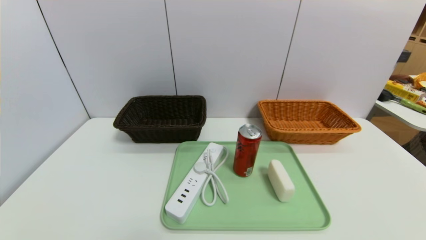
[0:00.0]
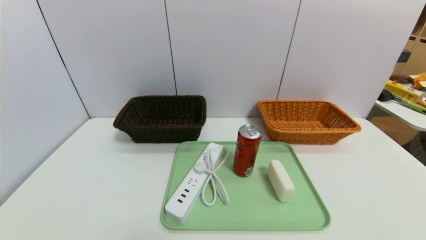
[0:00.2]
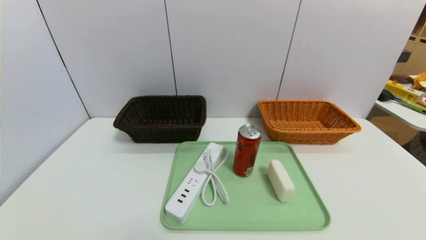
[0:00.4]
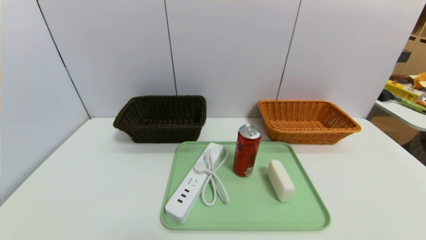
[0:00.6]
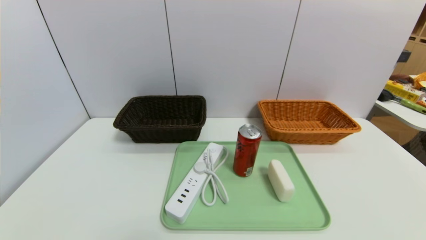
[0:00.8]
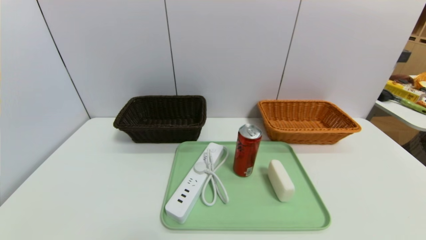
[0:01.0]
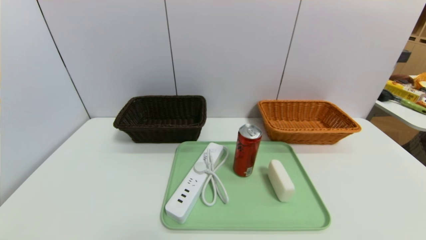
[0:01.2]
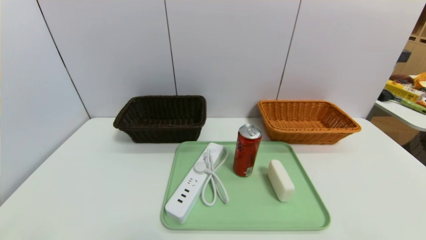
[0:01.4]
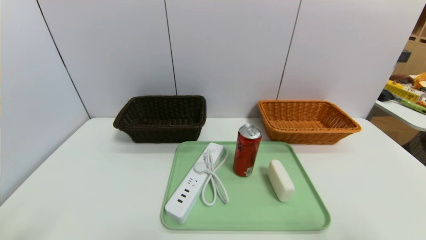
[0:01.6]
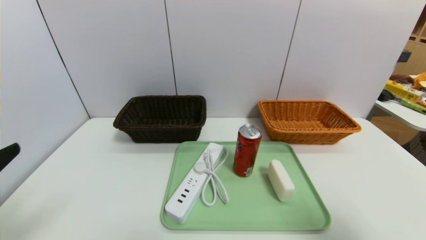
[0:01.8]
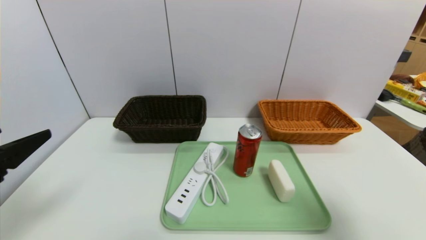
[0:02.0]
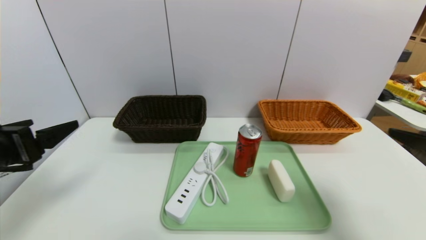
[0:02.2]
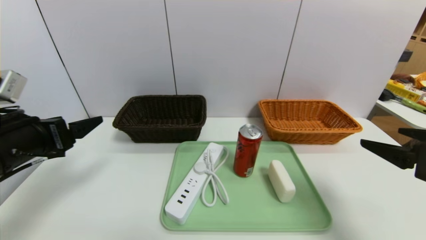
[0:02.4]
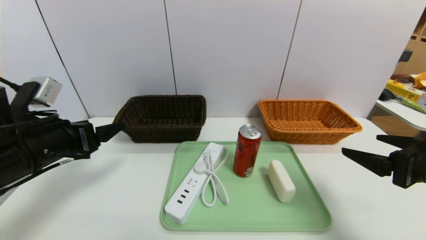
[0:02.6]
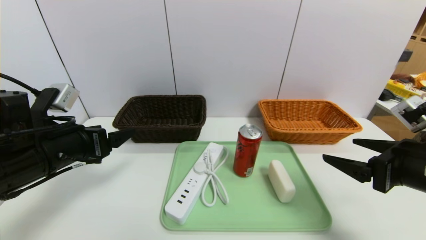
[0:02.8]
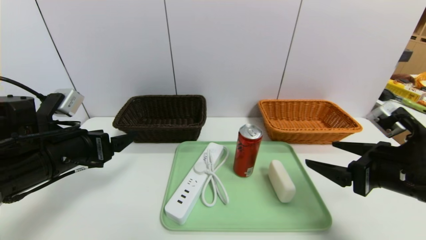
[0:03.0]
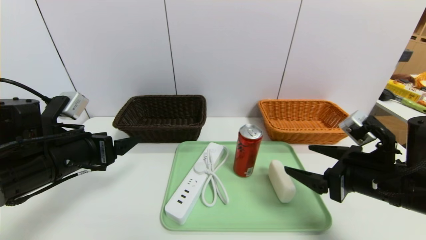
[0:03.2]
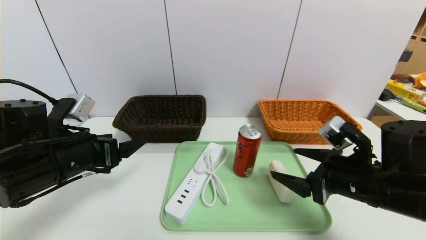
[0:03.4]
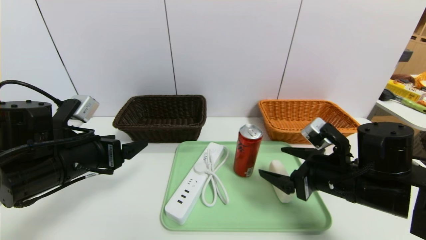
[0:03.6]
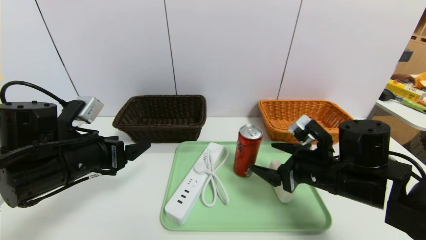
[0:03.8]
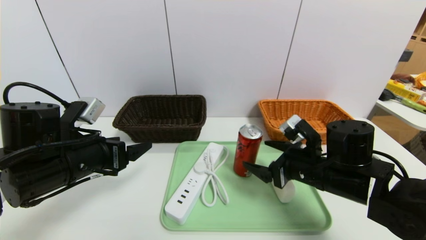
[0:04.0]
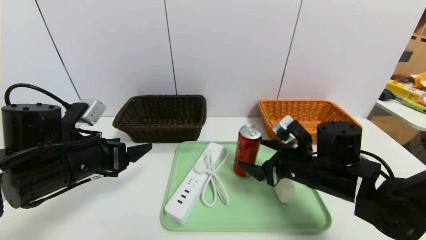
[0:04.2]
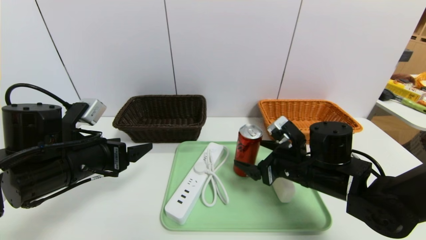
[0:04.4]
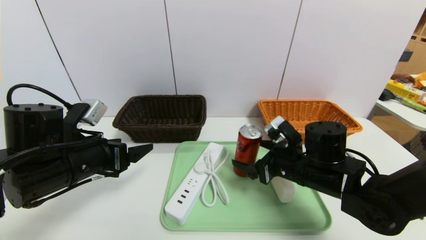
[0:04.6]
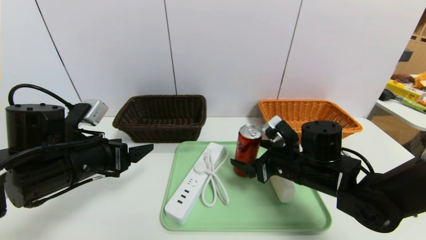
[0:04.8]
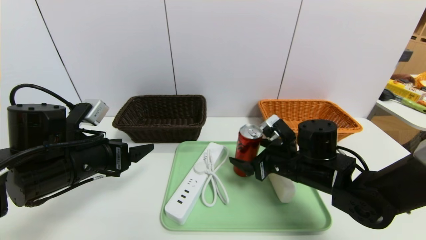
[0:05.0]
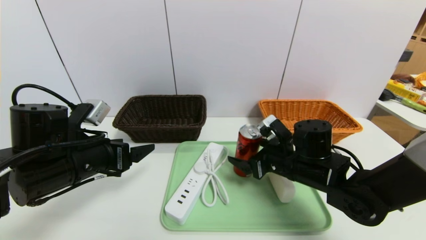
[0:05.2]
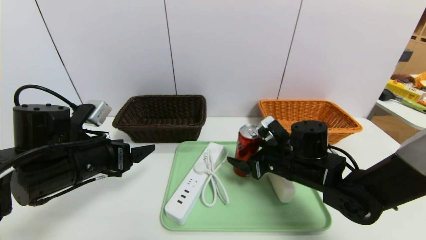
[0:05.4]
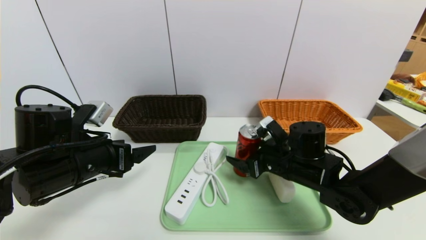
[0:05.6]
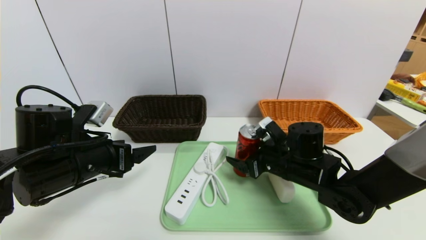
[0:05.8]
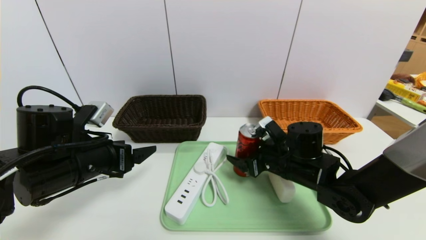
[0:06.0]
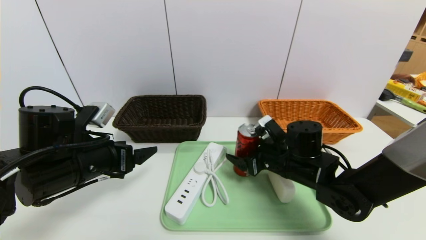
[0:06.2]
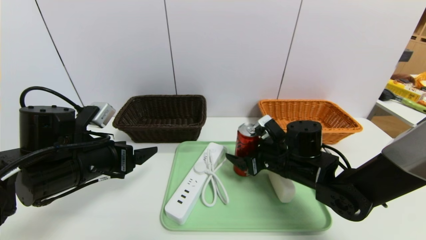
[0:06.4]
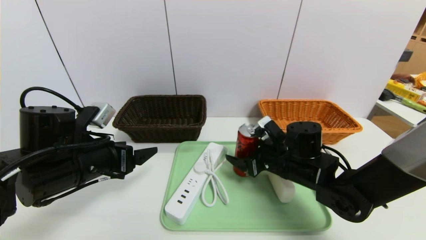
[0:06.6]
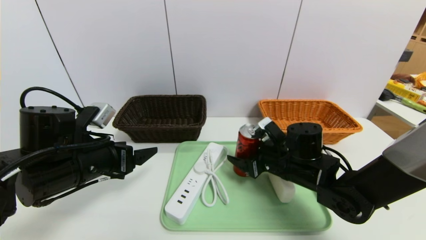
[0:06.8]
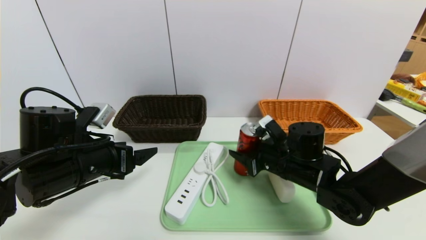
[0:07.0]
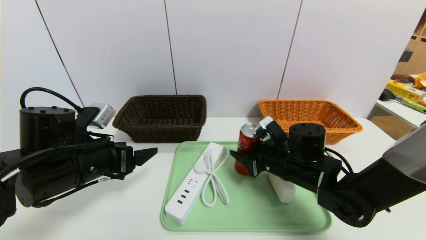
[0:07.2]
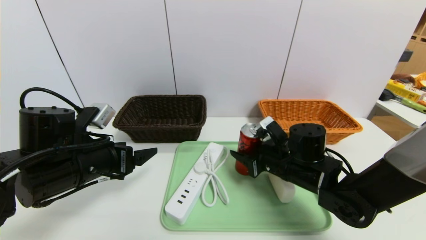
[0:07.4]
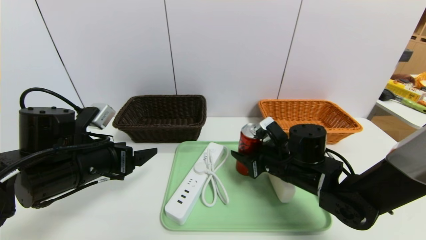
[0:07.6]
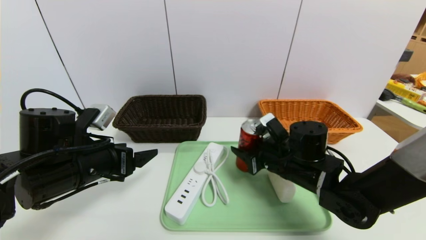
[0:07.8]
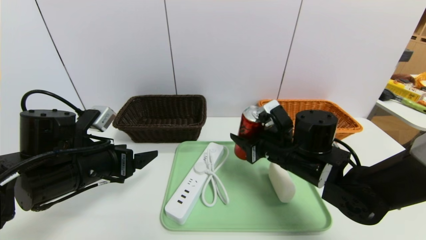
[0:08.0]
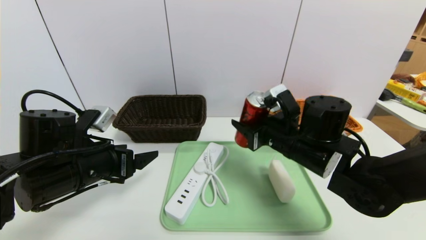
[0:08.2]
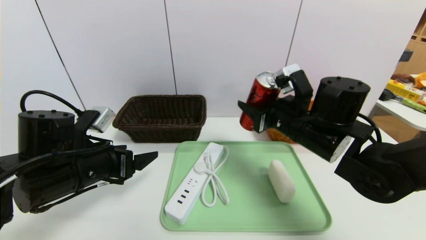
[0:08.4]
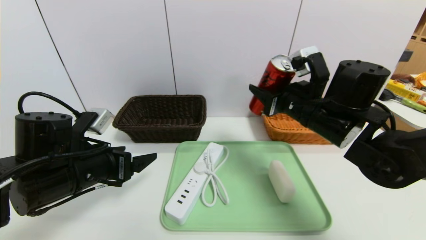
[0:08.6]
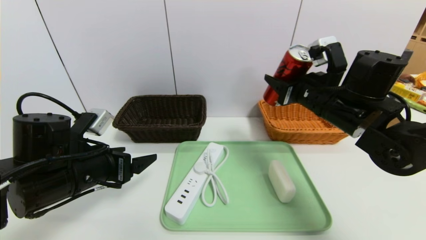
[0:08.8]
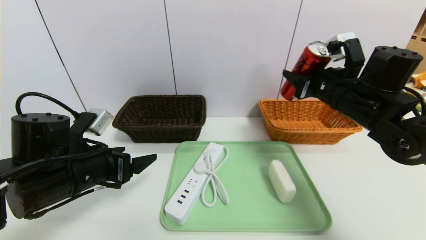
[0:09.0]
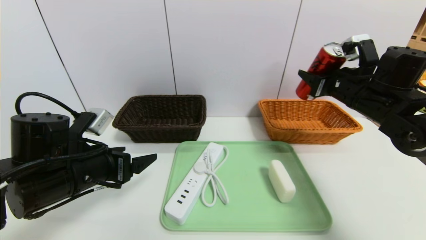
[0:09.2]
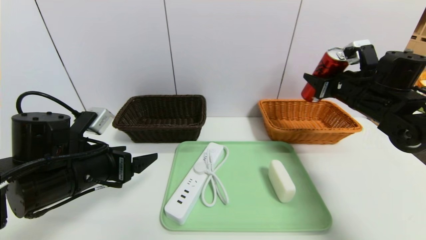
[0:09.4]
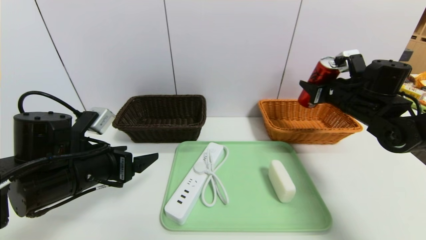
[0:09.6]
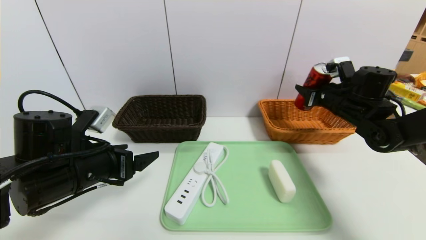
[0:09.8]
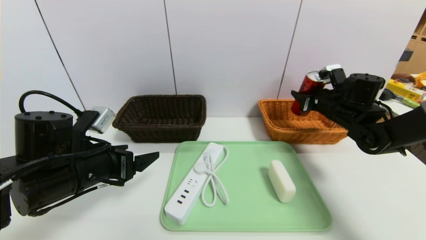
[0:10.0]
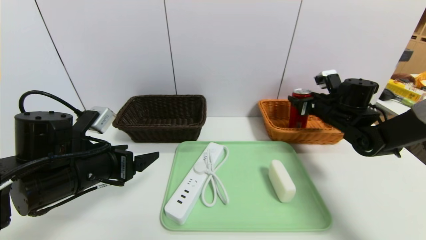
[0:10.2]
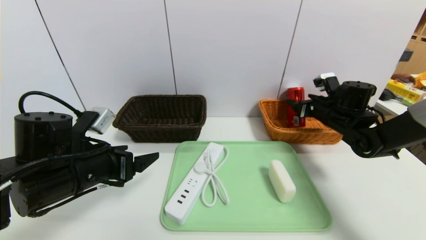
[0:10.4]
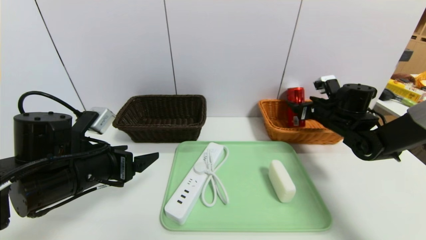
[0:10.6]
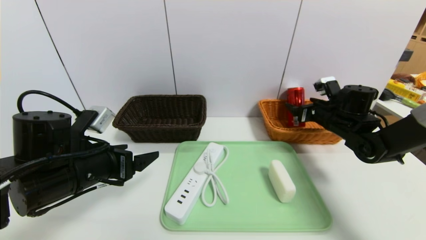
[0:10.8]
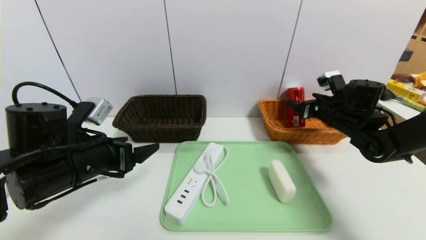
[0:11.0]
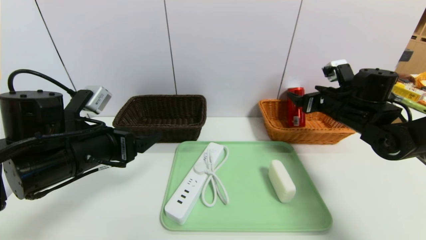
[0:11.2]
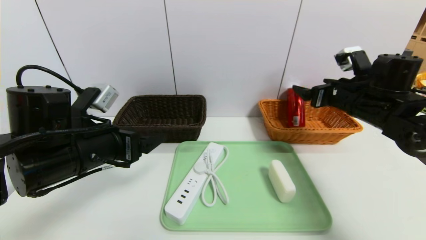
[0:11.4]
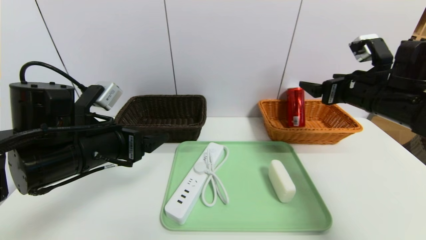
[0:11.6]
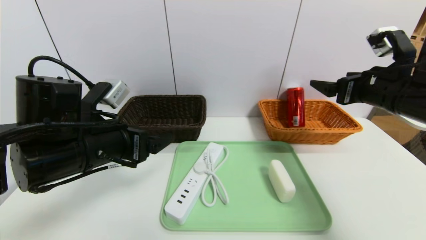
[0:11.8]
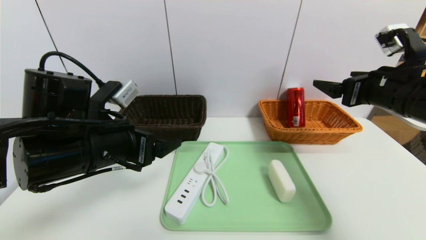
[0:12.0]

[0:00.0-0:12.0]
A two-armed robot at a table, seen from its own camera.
Task of the whole recording: place the food in the right basket with the right gripper, and place the non food items in the left basket with the left gripper.
Step, 0:00.0 to 0:10.4: Grasp the coke and put it in the right basket.
0:01.6 to 0:03.0: The right gripper is displaced forward and downward by roughly 20 cm. The left gripper goes about 20 cm forward.
0:03.0 to 0:04.4: The right gripper goes some 15 cm to the left, forward and downward.
0:04.4 to 0:06.0: There are only small adjustments of the grippers.
0:06.0 to 0:07.6: The right gripper closes.
0:07.6 to 0:09.0: The right gripper goes some 15 cm upward and to the right.
0:09.0 to 0:10.4: The right gripper travels downward, forward and to the right by some 15 cm, and opens.
0:10.4 to 0:12.0: The left gripper is displaced upward by about 5 cm. Meanwhile the right gripper heads backward and upward, covering roughly 20 cm, and opens up.

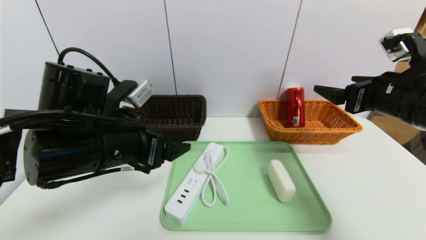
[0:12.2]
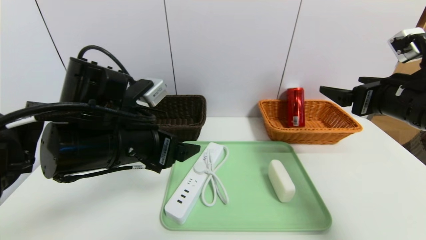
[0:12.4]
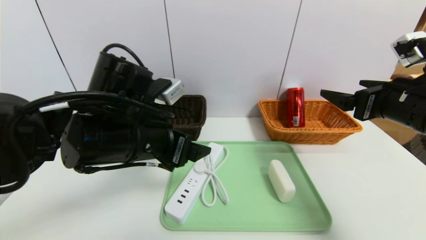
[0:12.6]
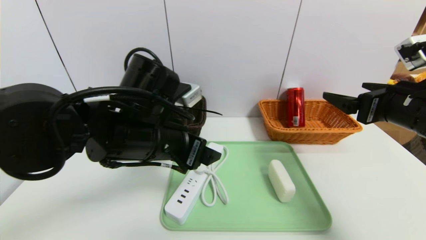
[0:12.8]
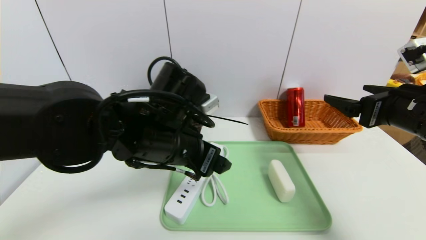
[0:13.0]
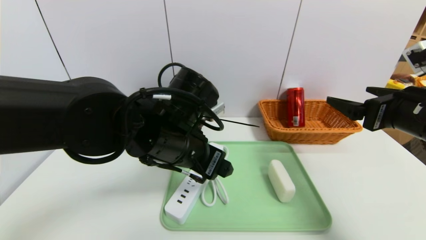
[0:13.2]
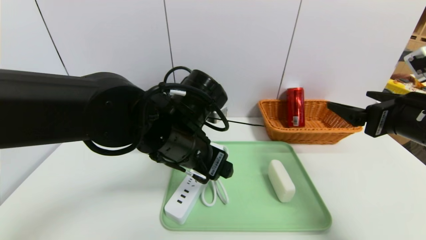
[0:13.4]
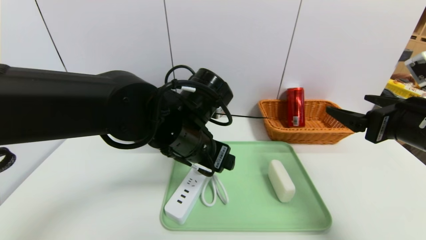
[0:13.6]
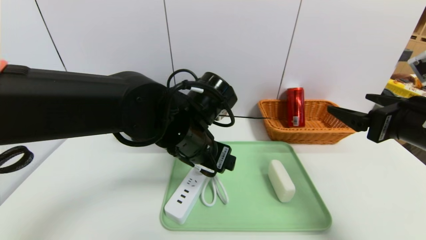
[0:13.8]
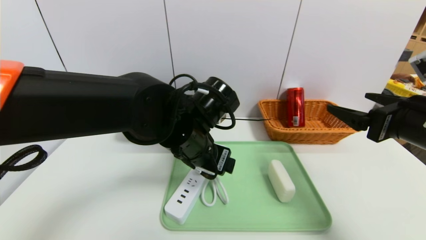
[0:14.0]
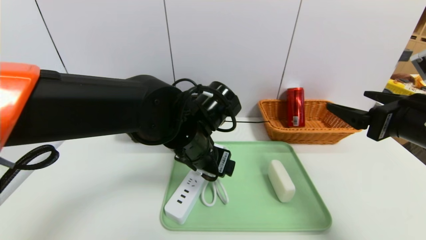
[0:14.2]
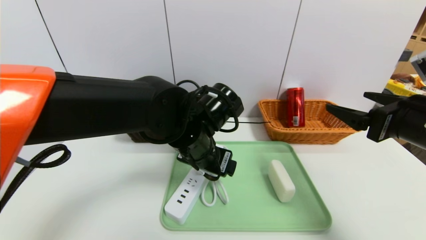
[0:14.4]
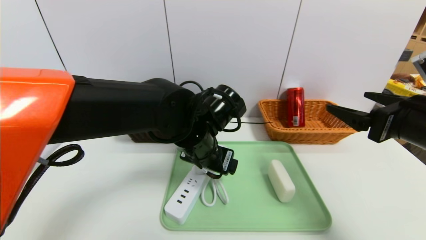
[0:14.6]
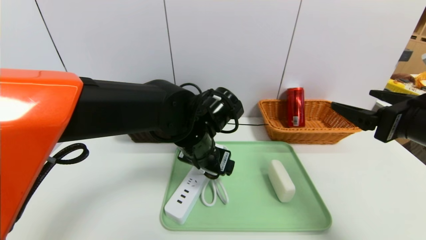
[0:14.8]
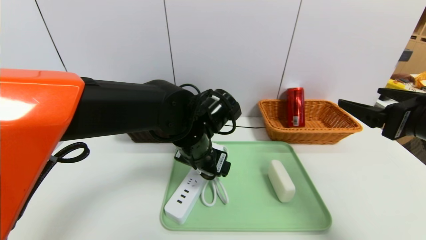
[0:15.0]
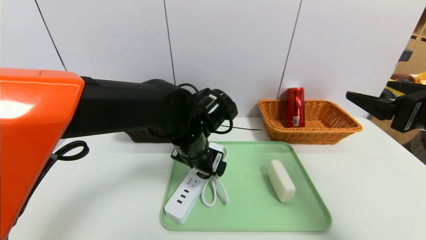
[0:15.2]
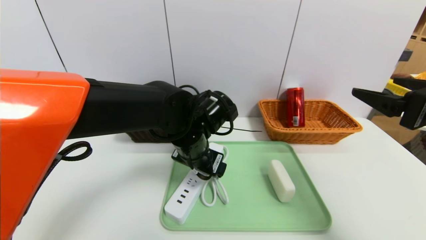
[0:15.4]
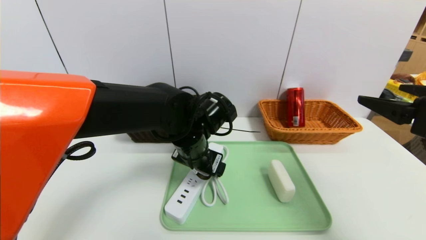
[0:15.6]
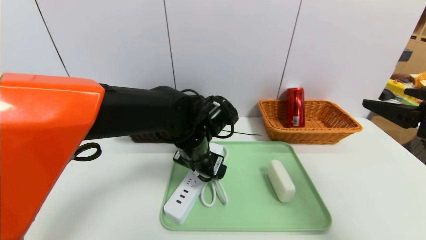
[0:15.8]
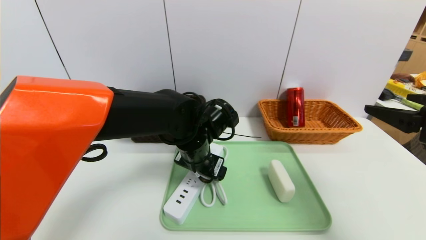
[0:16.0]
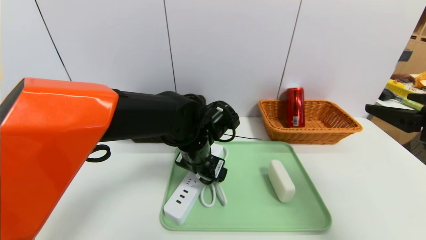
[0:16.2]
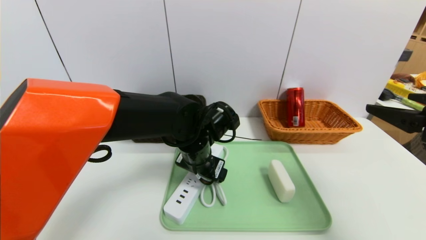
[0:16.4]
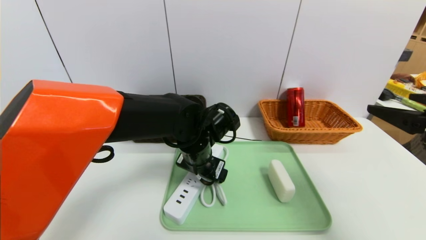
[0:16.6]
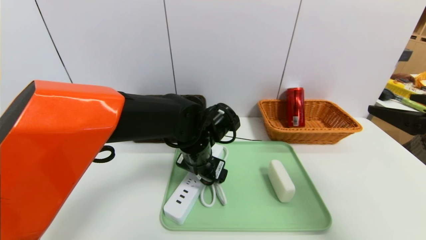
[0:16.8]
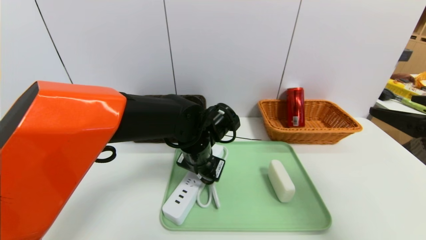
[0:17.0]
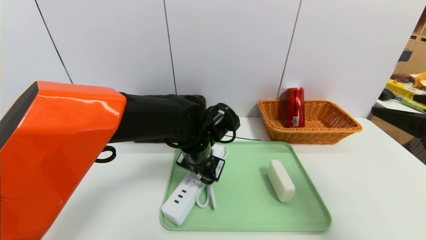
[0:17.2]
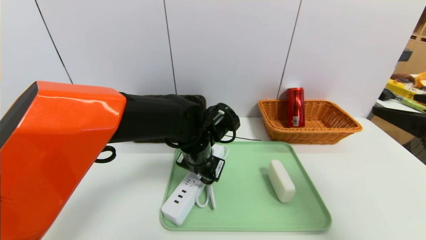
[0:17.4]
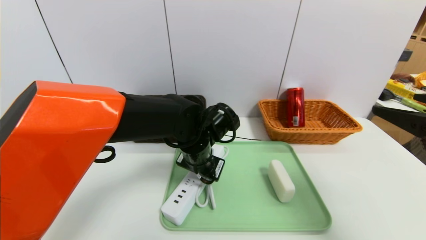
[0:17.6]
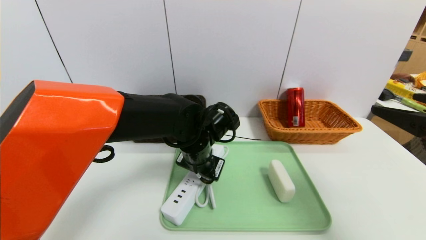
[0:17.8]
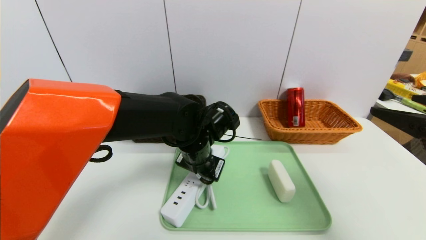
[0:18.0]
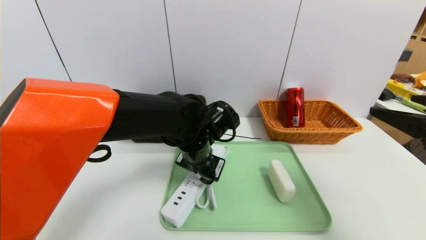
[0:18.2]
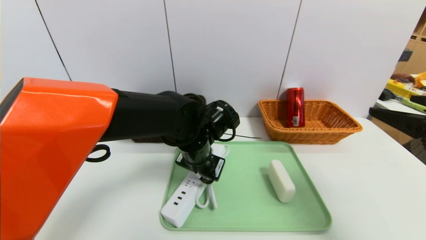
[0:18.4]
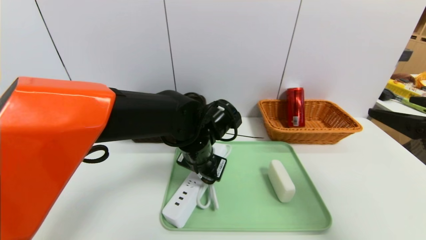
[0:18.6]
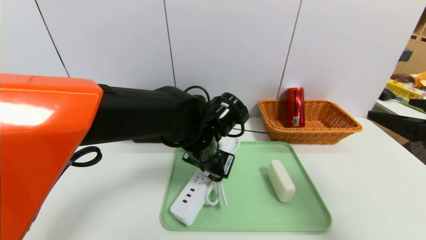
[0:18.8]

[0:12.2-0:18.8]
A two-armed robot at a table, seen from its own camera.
Task of the whole recording: place the food in the right basket with the right gripper, and place the non food items in the left basket with the left gripper.
0:12.2 to 0:13.8: The right gripper is displaced backward by about 5 cm; the left gripper moves to the right, roughly 10 cm.
0:13.8 to 0:15.4: The grippers move only a little.
0:15.4 to 0:17.2: The left gripper closes up.
0:17.2 to 0:18.8: The grippers move only a little.
